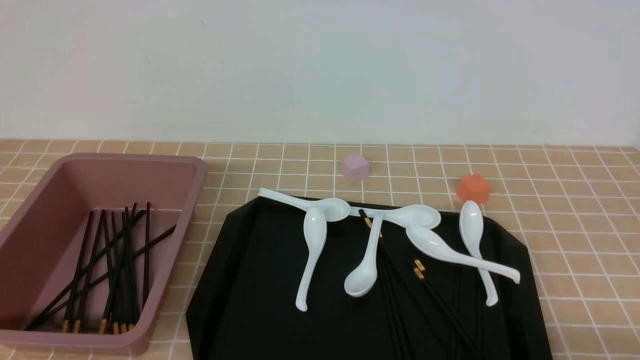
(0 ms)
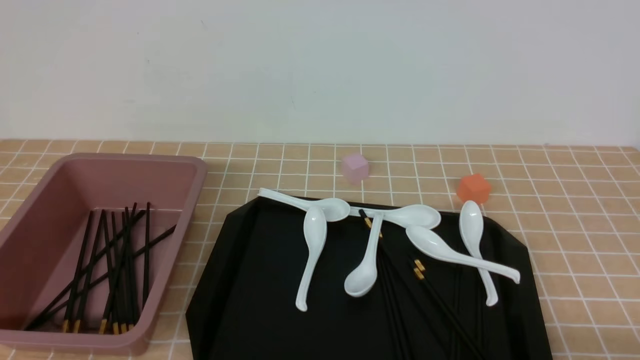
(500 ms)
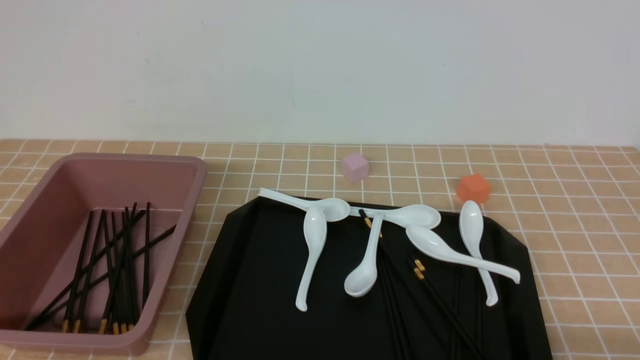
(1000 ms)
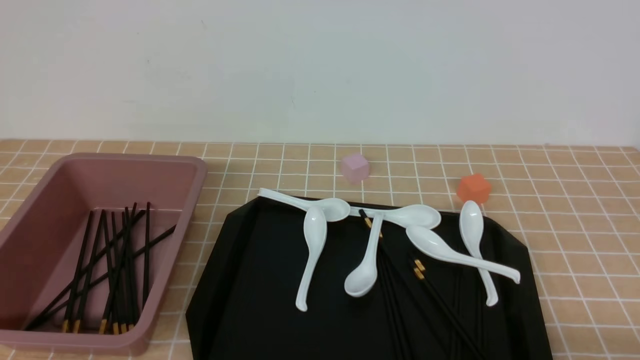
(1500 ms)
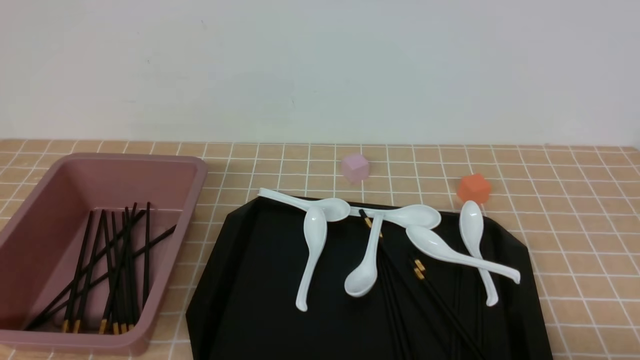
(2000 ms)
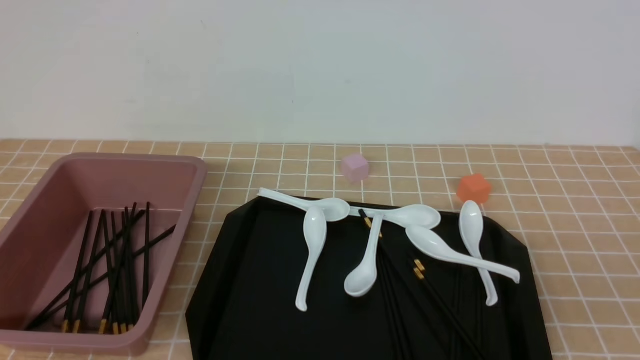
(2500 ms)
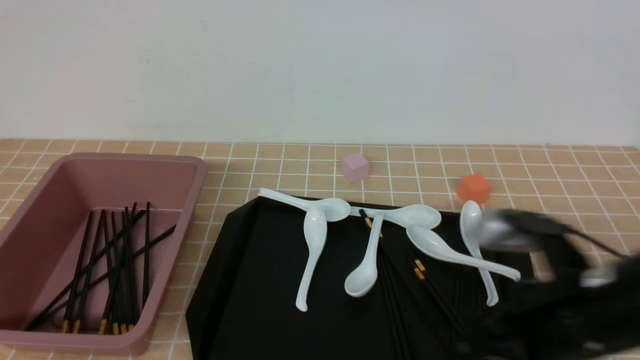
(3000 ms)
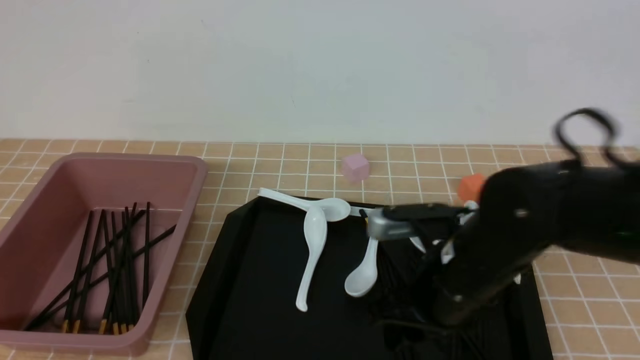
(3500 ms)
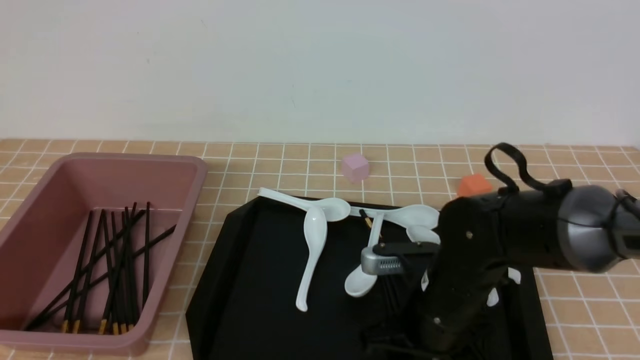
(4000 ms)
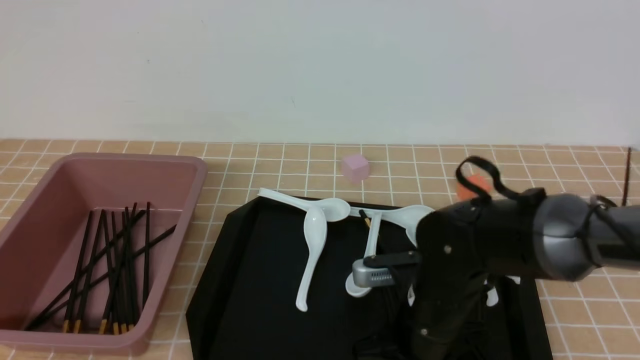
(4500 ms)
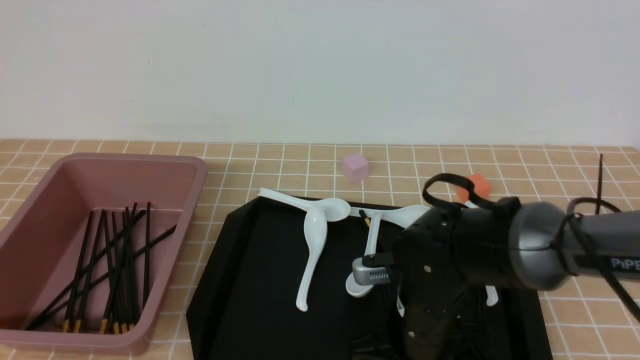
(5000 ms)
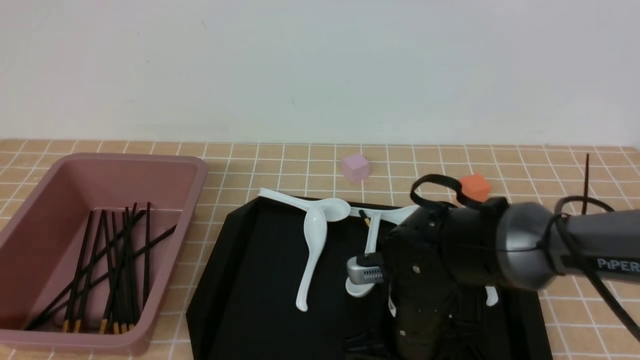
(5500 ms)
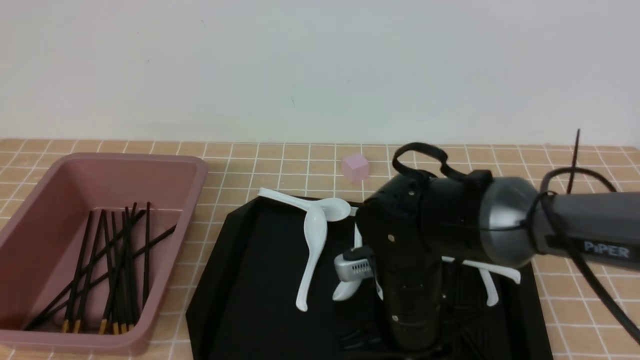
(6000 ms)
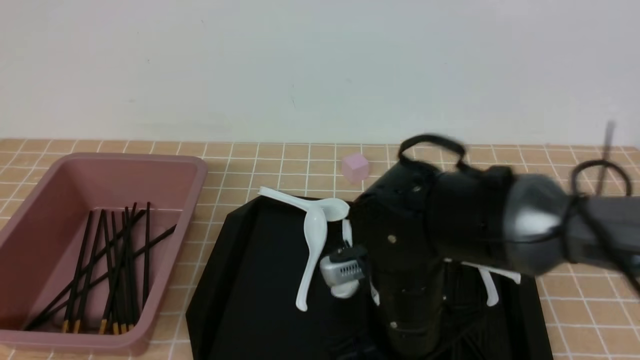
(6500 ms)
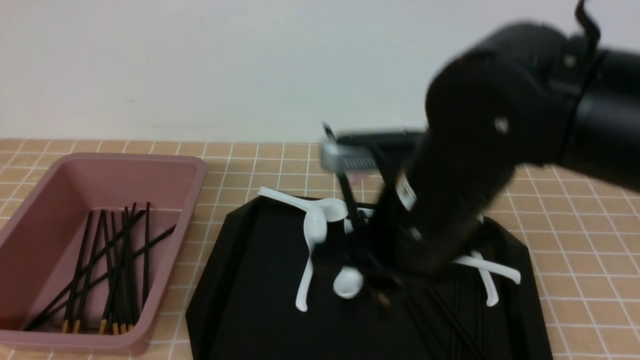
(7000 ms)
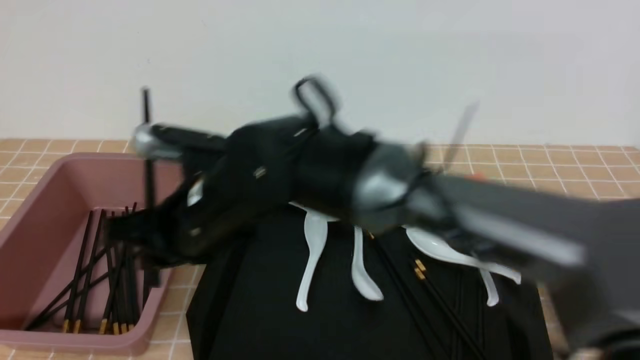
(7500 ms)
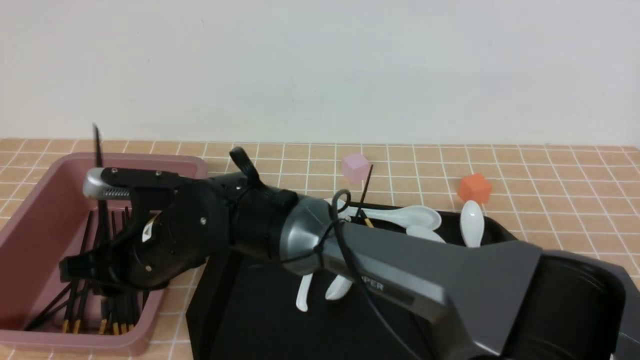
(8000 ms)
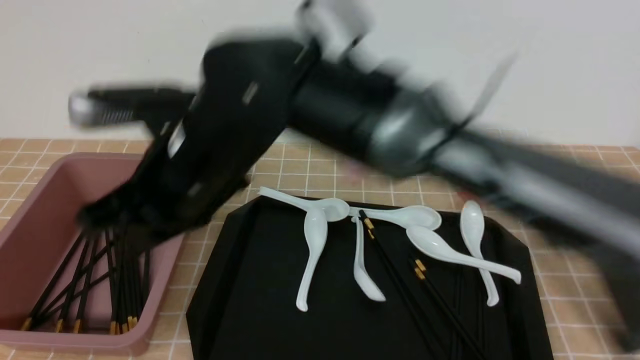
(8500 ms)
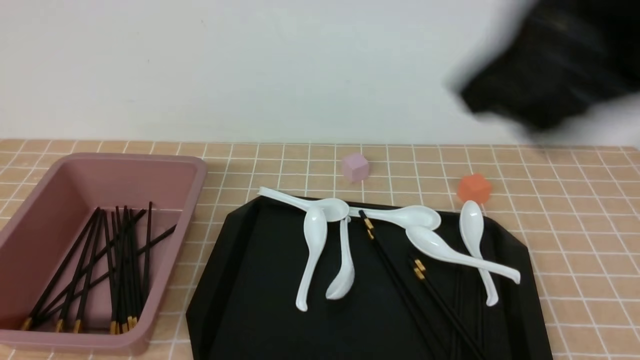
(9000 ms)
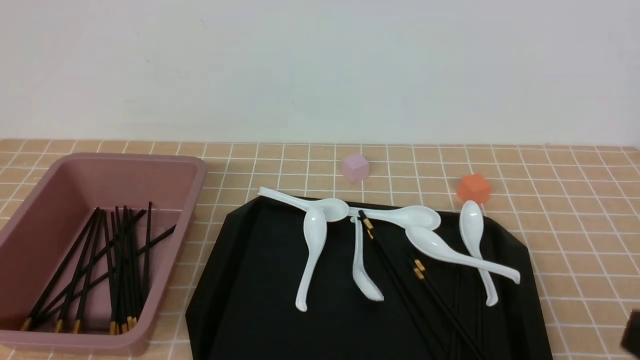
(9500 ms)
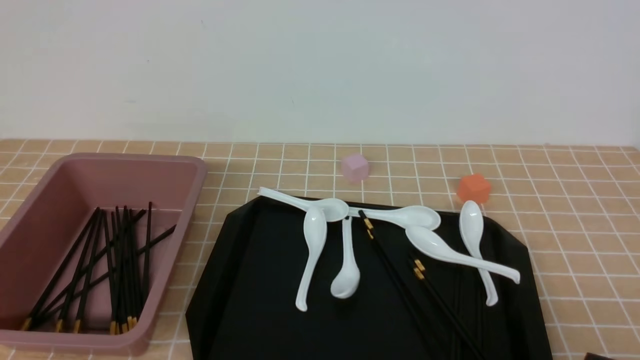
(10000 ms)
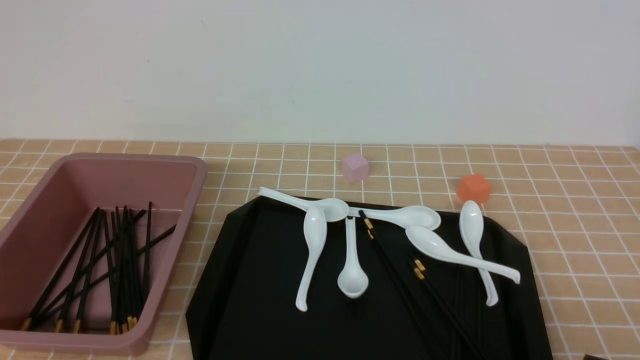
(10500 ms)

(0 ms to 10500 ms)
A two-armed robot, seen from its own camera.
Step, 0 ms - 6500 ms: use the right arm to grab a pair of chopsticks.
Step, 7000 ms - 8000 ms: use the right arm to put the chopsticks into the lunch box.
2000 ms - 4000 ms: The right gripper is displaced forward and to the left by some 30 cm, and closes, then reopens, while the left gripper opens.
4000 ms - 6500 ms: The right gripper shifts some 5 cm upward, and closes its fingers.
6500 ms - 8500 ms: The right gripper heads upward and to the left, covering about 20 cm.
8500 ms - 10500 ms: The right gripper goes roughly 40 cm to the right and backward.

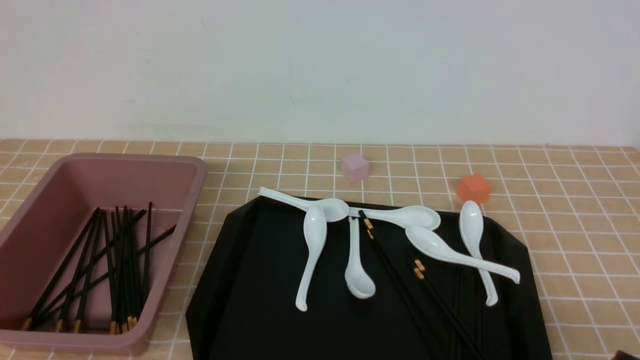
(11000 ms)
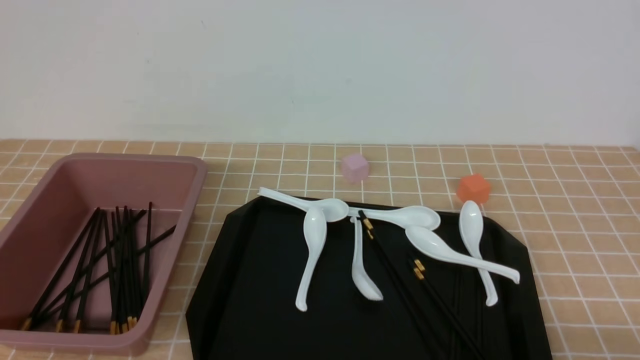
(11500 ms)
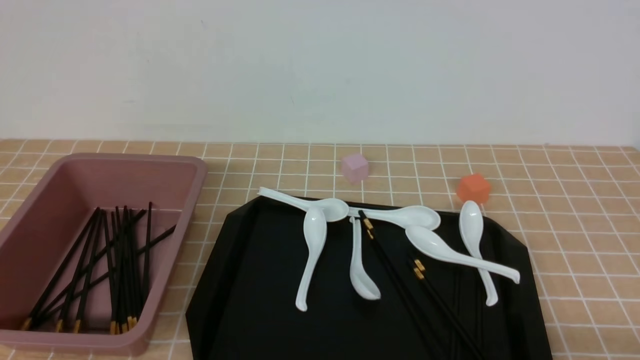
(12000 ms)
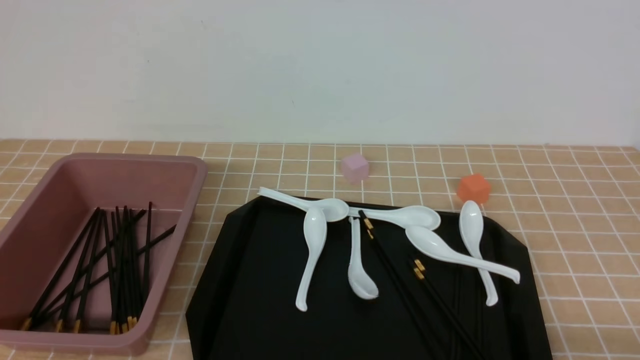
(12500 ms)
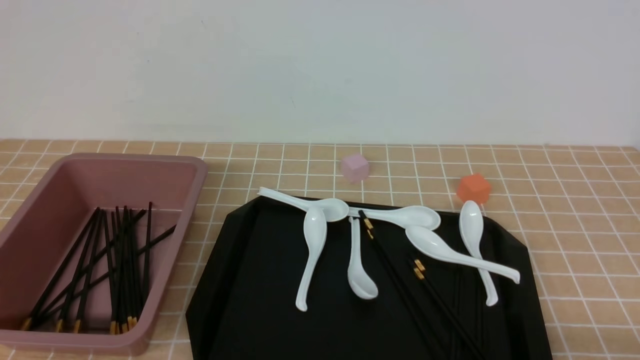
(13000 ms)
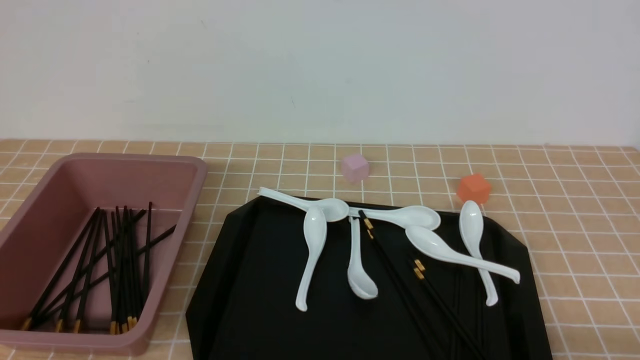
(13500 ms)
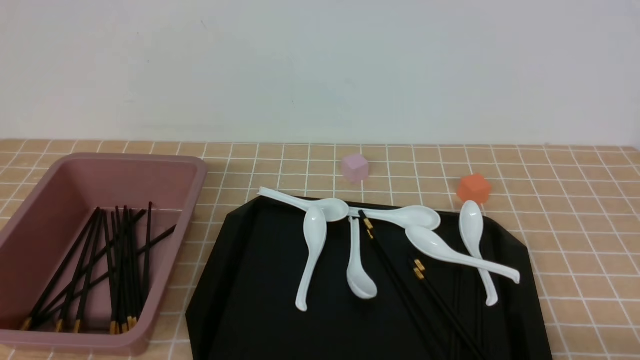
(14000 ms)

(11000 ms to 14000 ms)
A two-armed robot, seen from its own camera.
12500 ms - 14000 ms: The two grippers keep their place.
